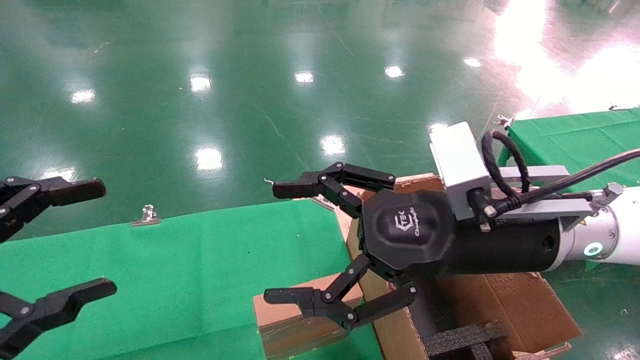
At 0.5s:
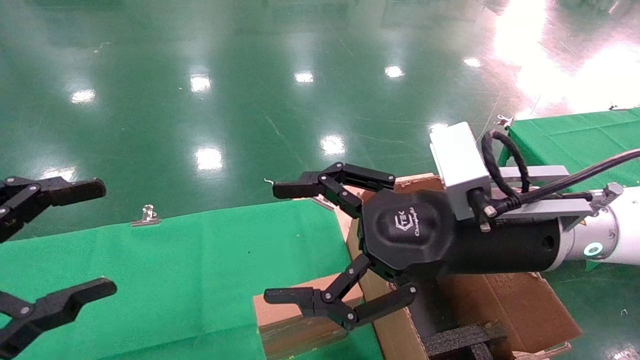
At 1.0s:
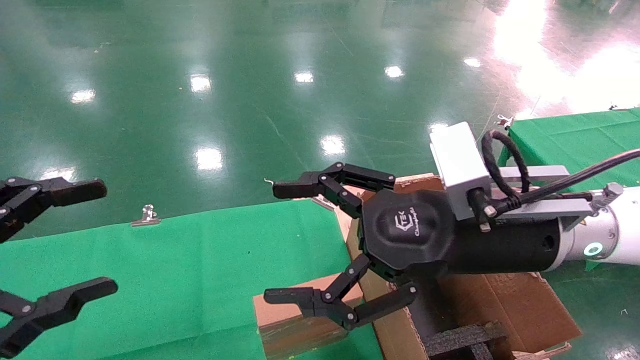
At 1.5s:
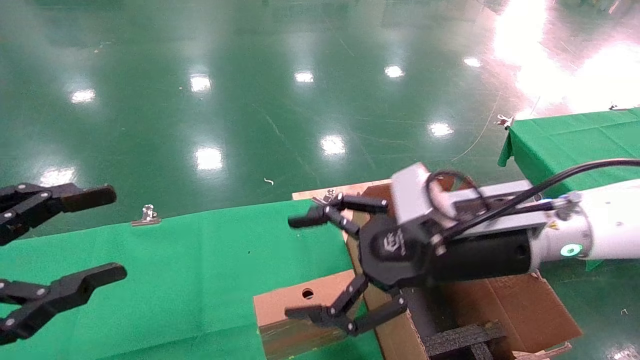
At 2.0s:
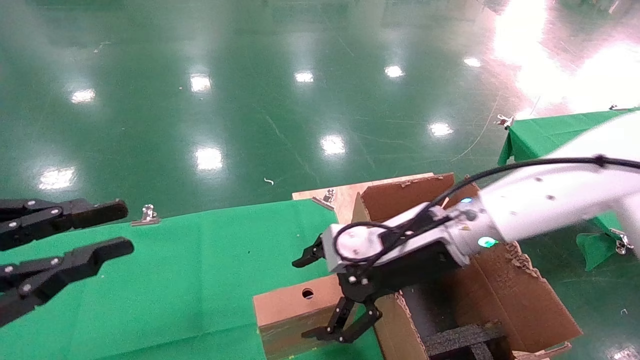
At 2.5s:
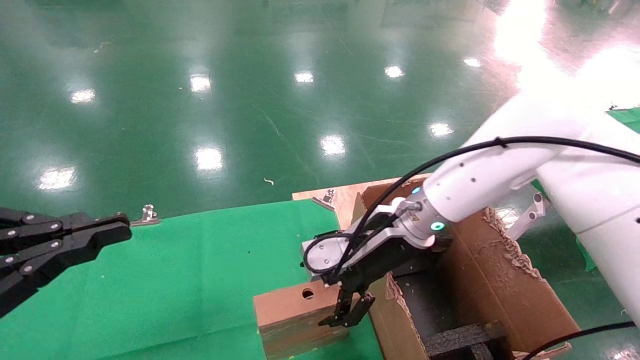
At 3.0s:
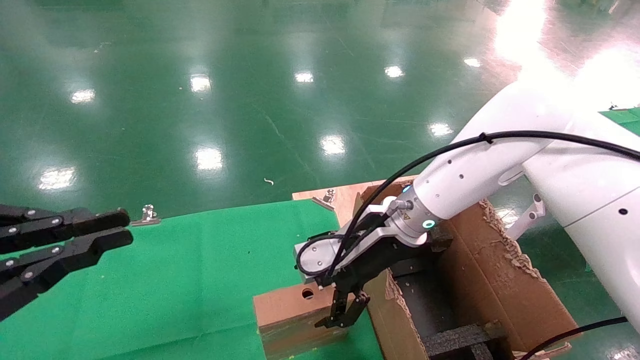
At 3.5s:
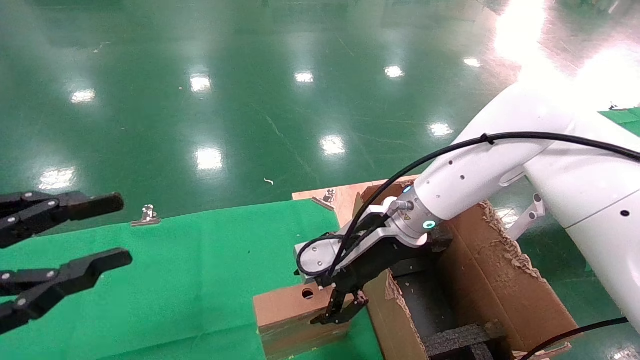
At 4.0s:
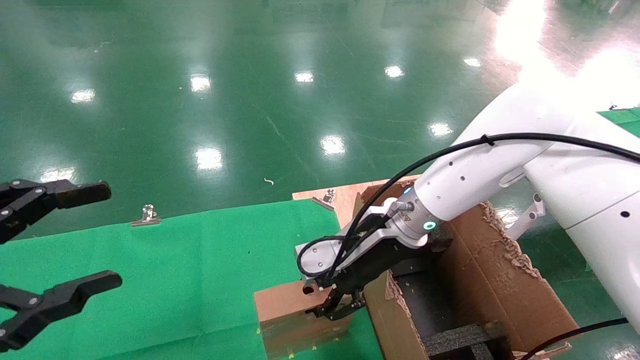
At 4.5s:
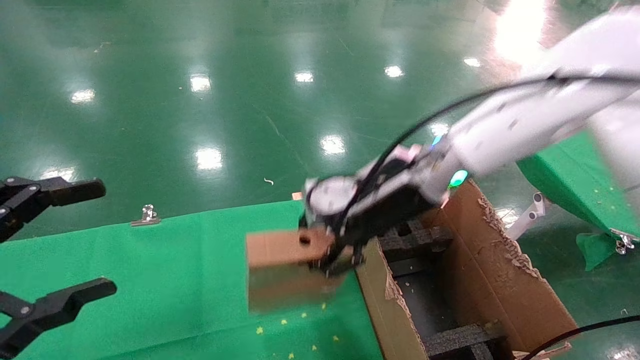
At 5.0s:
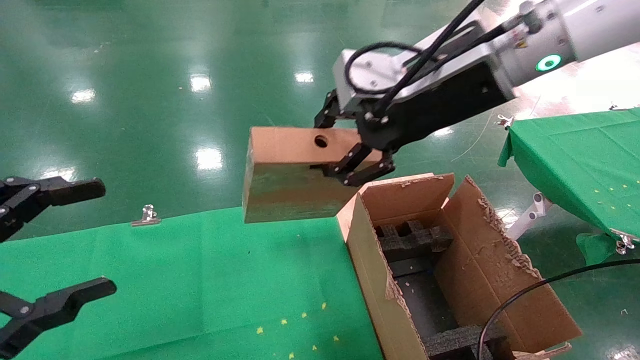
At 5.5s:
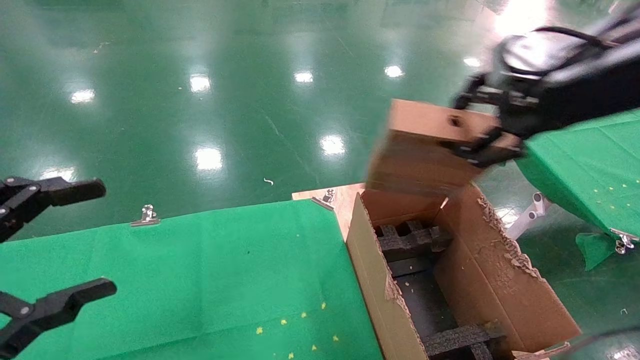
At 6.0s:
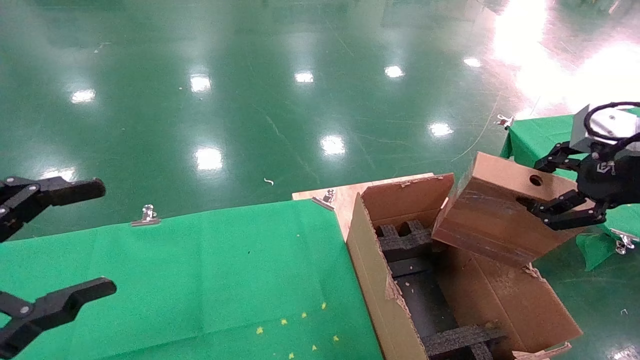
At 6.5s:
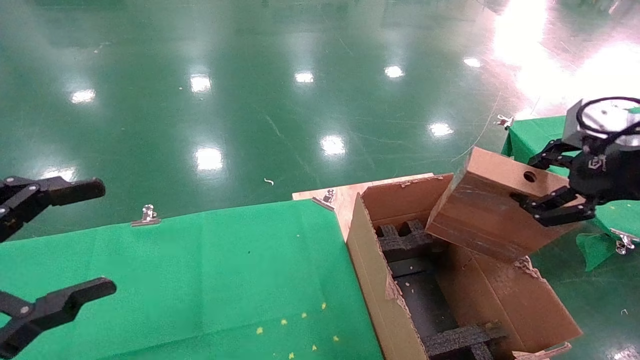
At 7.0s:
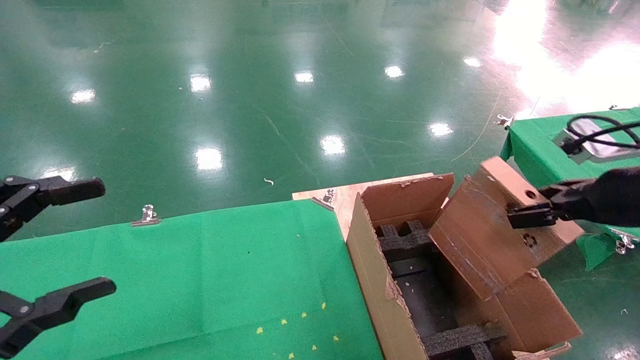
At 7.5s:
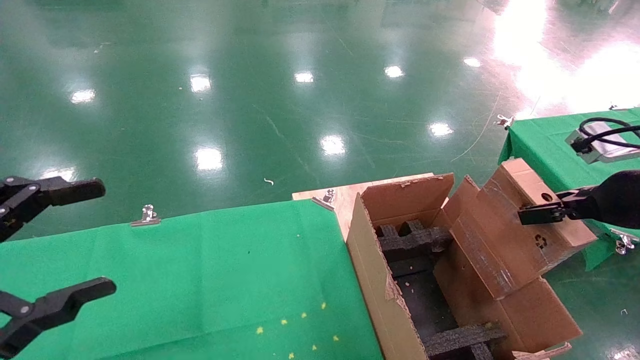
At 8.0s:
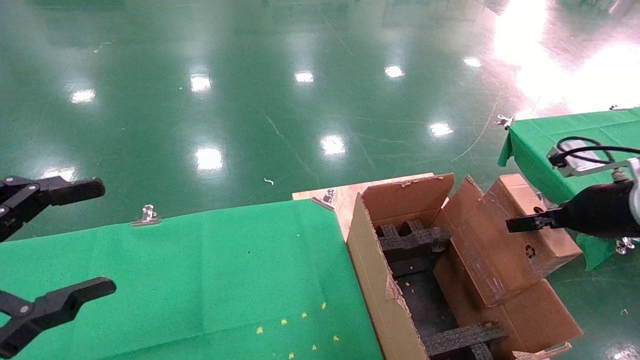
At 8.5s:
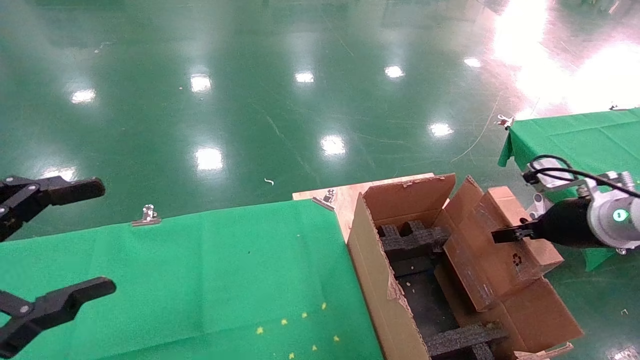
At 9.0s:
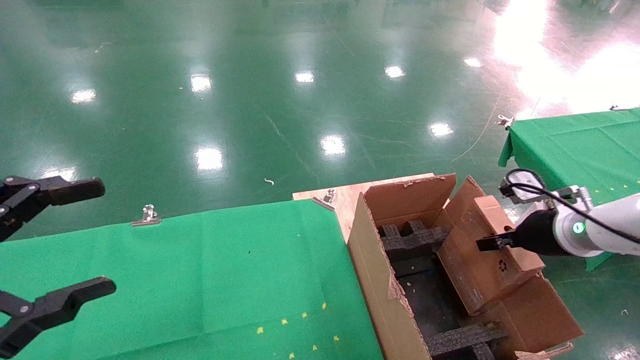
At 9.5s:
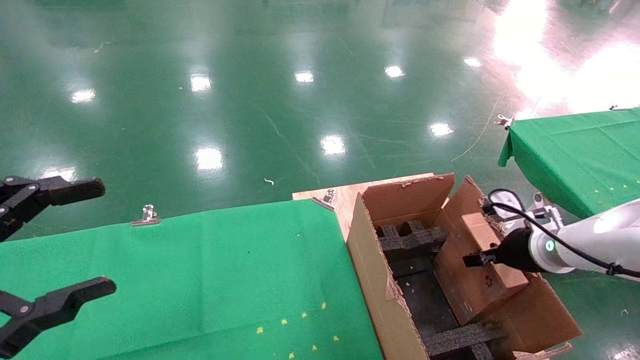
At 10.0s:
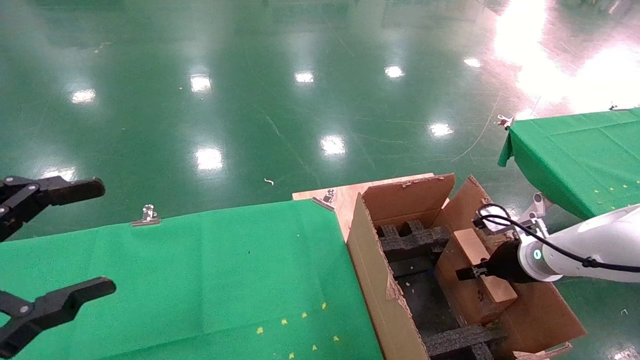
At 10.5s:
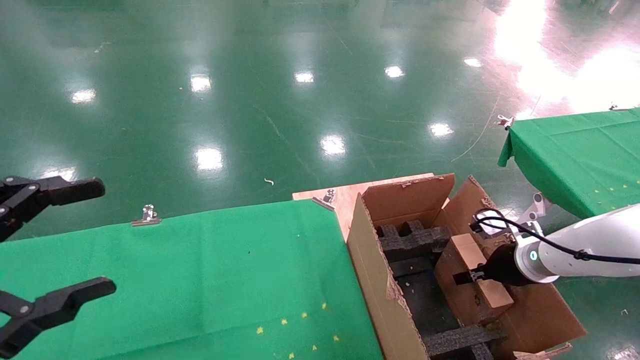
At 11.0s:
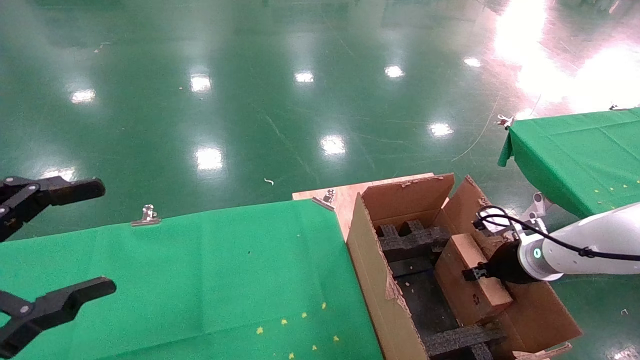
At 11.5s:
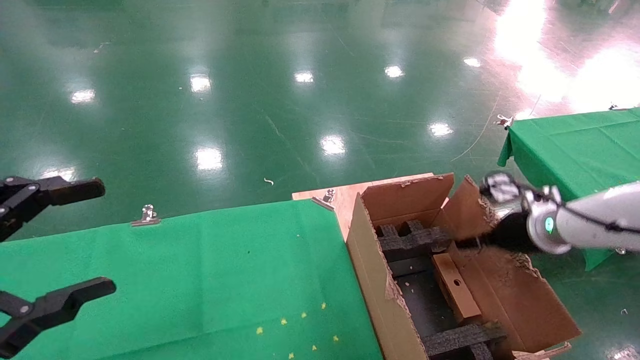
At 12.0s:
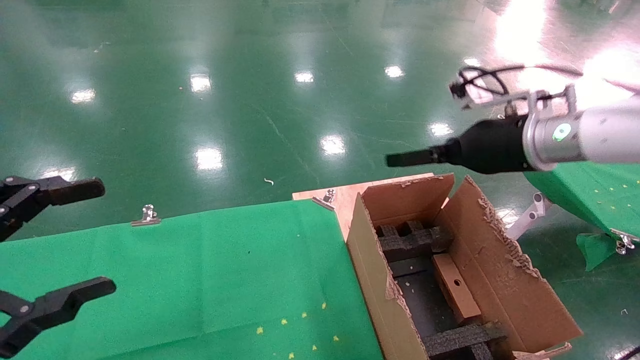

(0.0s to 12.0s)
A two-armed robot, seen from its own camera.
Task of the whole recording: using a robotic arm to pick up a cardboard box and palace it the carton.
Step, 1.5s - 3.5s: Pick up the mouse and the power cord paper box.
Step, 4.0s - 11.0s: Place the mouse and the power cord paper box into the container.
0.0s - 2.0s: The right gripper goes about 10 cm forward and downward. Meanwhile the left gripper closes up.
2.0s - 4.0s: The right gripper ends up some 5 cm from where it was, and closes its fingers, while the left gripper opens up.
4.0s - 6.0s: The right gripper is displaced to the right, backward and upward by some 35 cm.
6.0s - 8.0s: The right gripper heads downward and forward, covering about 10 cm.
8.0s - 10.0s: The right gripper moves downward and forward, roughly 15 cm.
10.0s - 12.0s: The right gripper moves upward and to the left, some 20 cm, and opens.

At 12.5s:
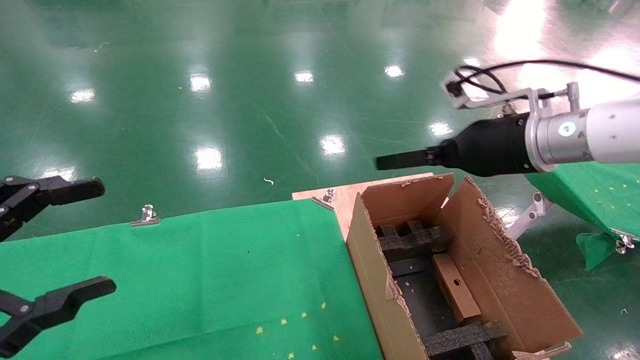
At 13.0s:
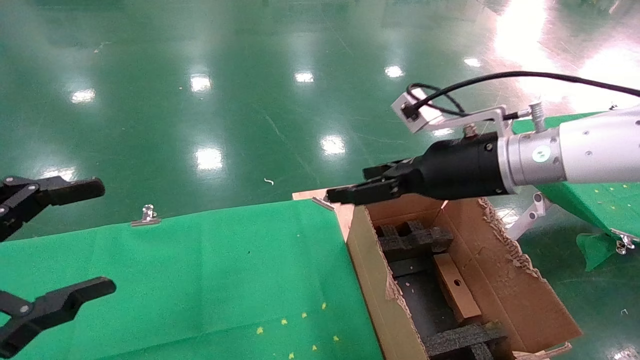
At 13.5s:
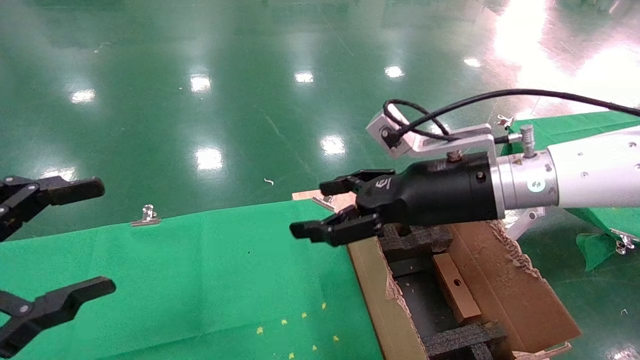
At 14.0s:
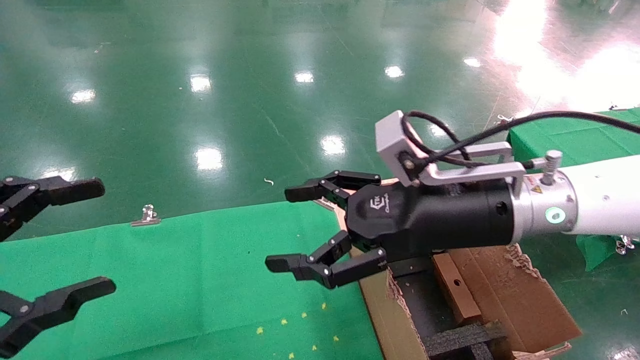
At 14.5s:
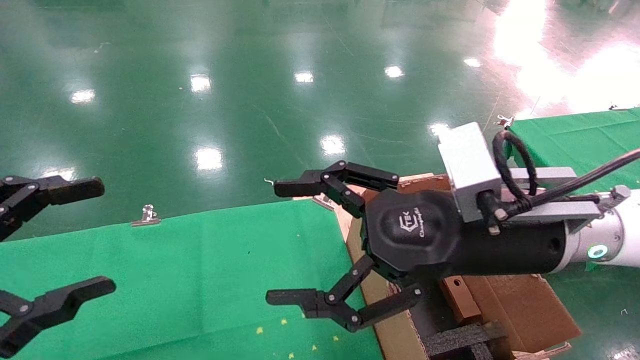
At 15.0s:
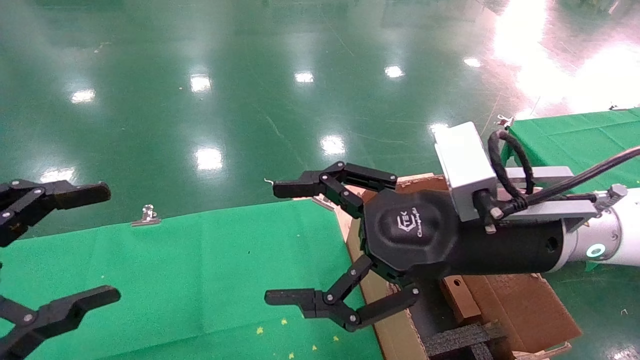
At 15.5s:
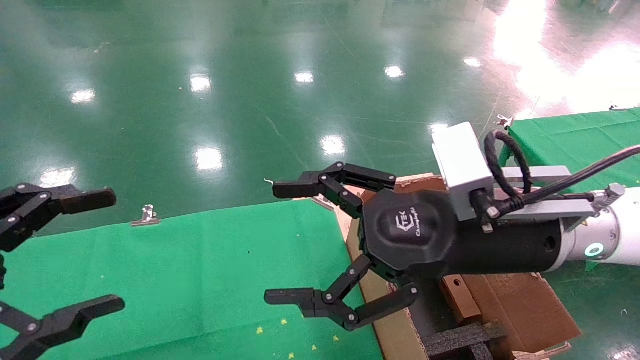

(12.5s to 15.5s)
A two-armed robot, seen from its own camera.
Task of the whole recording: using a robotic arm to pick up a cardboard box and palace it the carton.
12.5s - 14.0s: The right gripper travels to the left and backward by roughly 10 cm.

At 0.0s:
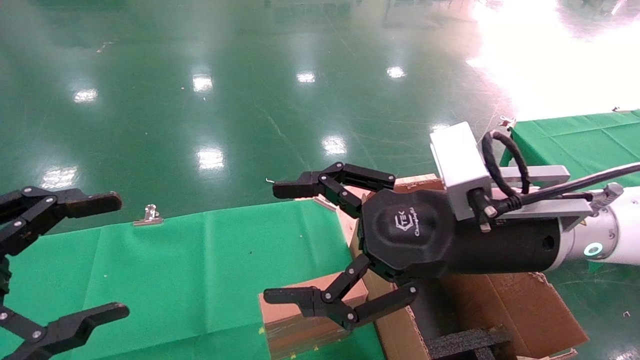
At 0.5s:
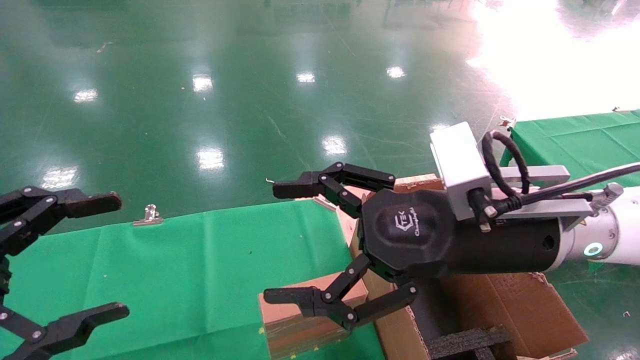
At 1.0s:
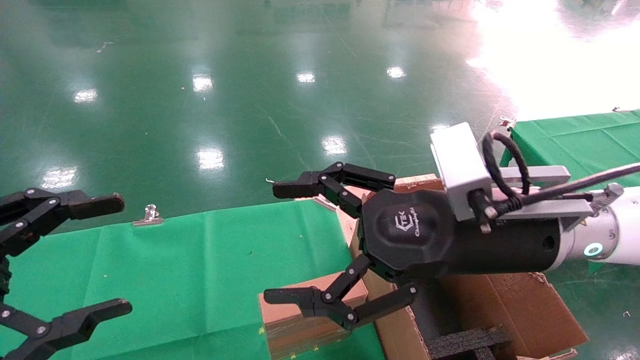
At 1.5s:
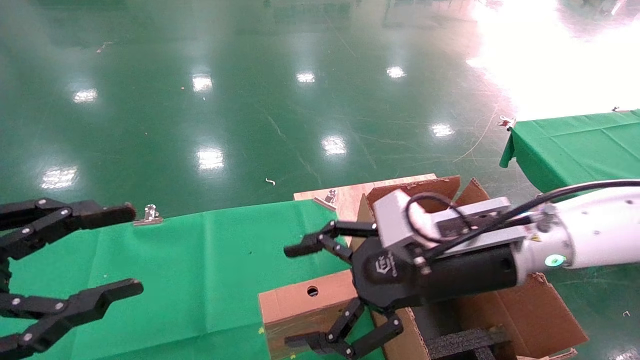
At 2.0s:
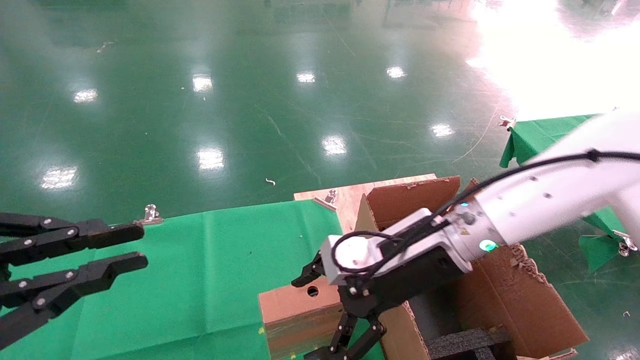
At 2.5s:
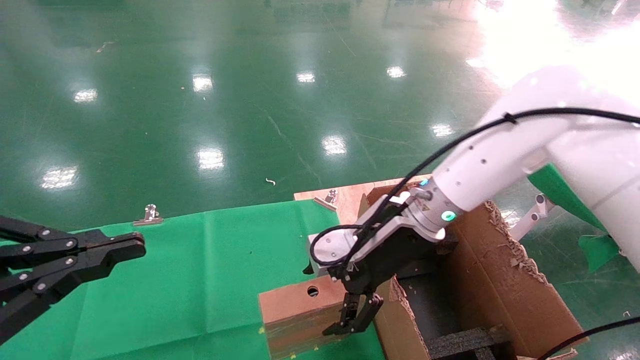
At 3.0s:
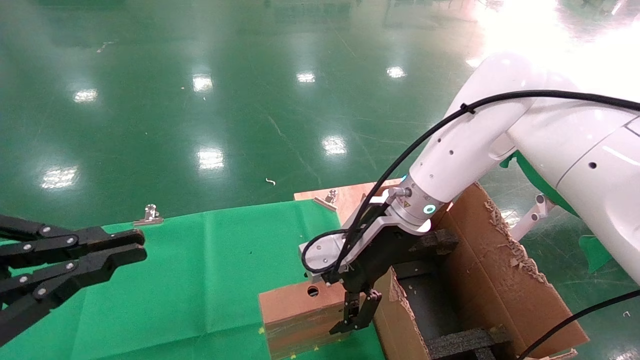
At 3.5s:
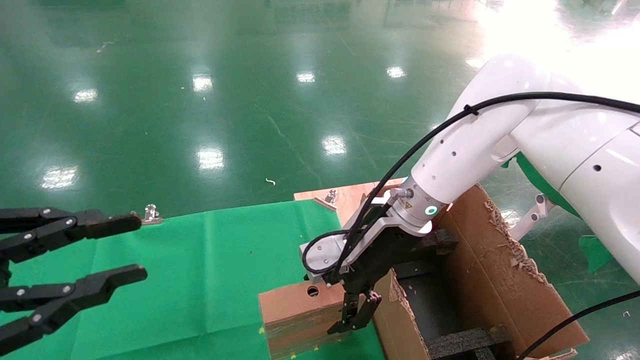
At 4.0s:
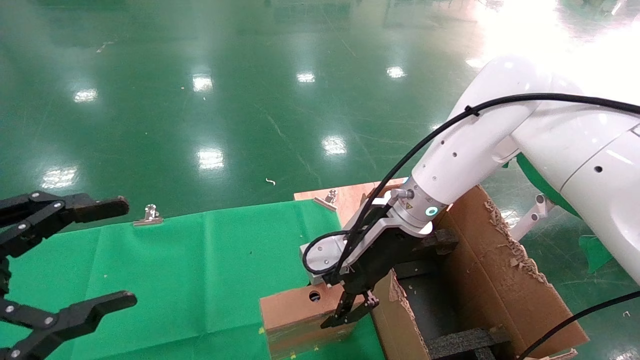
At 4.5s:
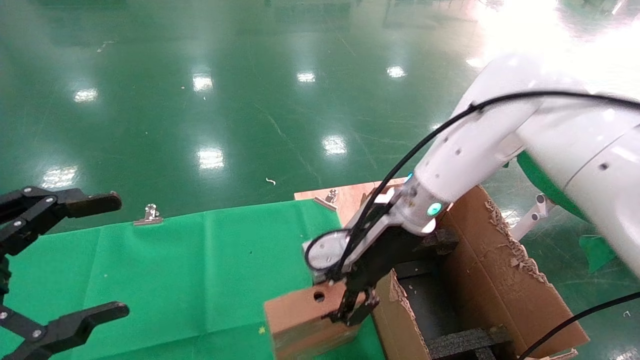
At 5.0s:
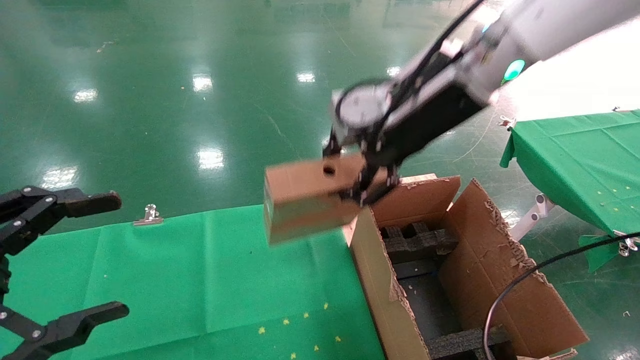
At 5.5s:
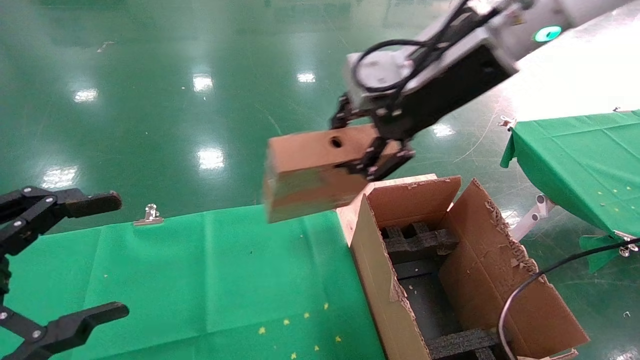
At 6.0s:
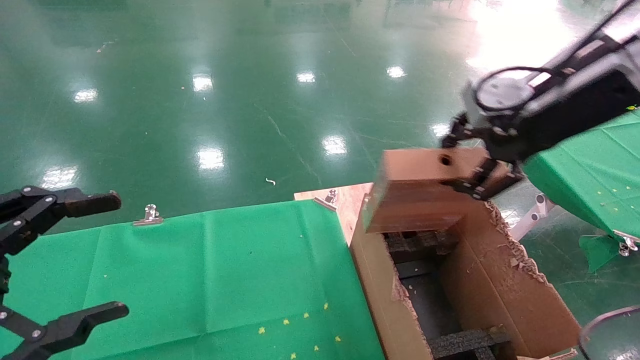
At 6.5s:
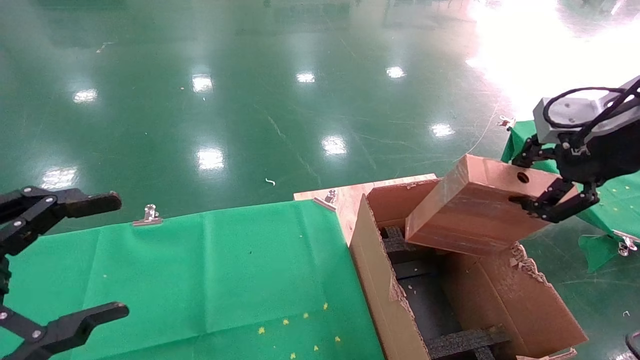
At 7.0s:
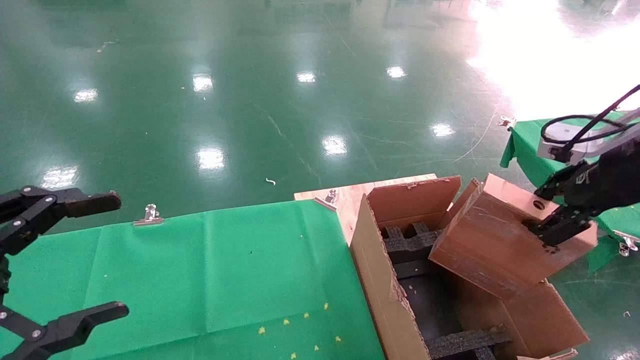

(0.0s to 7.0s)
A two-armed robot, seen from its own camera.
Task of the whole recording: using a robotic arm to pick up a cardboard box and palace it the carton.
Step, 1.5s - 4.5s: Pick up the mouse and the power cord paper box.
0.0s - 2.0s: The left gripper closes; the right gripper heads forward and downward, covering approximately 10 cm.
2.0s - 3.5s: The right gripper heads forward, covering some 5 cm.
3.5s - 5.0s: The left gripper opens; the right gripper shifts some 15 cm upward, and closes up.
5.0s - 7.0s: The right gripper heads to the right, covering some 25 cm.
